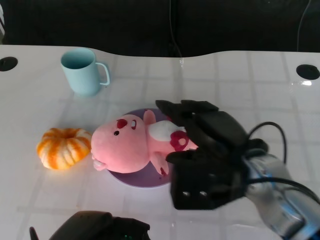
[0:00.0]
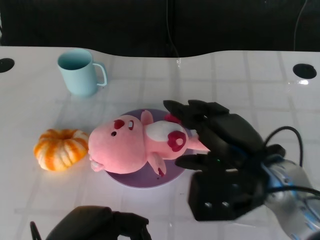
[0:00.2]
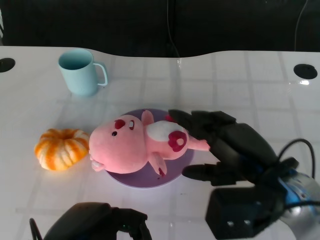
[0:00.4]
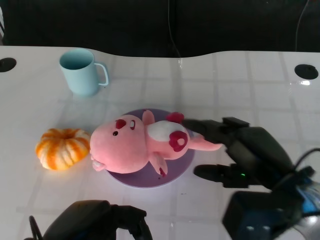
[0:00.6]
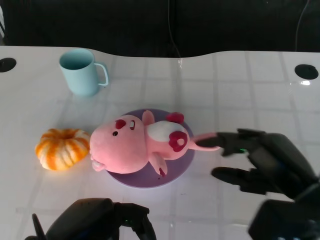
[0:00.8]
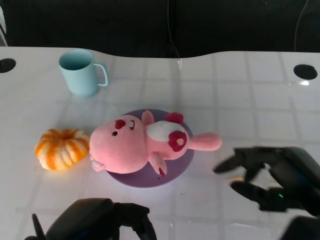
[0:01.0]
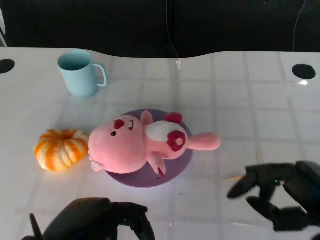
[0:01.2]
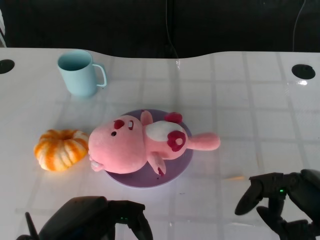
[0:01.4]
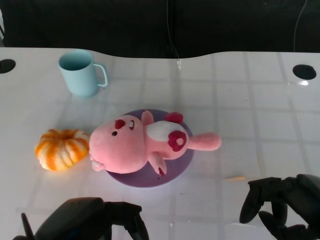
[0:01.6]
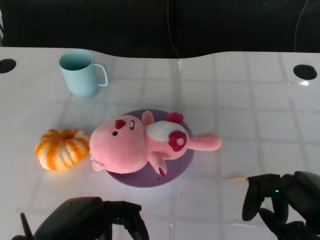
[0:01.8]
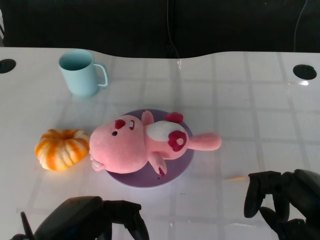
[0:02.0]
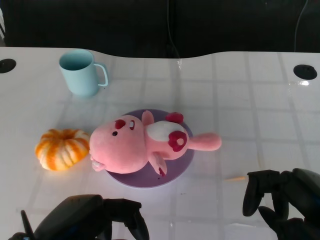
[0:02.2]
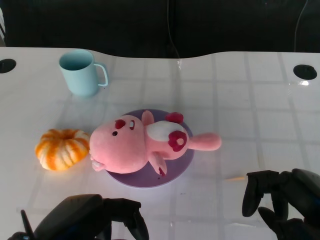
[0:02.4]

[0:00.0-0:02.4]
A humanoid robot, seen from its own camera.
Task of the whole recording: Pick up the doll on the other side of the plate and place it into the plate.
0:00.0 to 0:01.2: The right hand is displaced to the right and backward by approximately 15 cm.
0:01.2 to 0:02.4: The hands stay close to where they were, moving slightly.

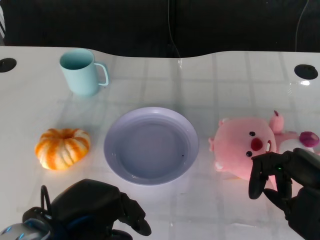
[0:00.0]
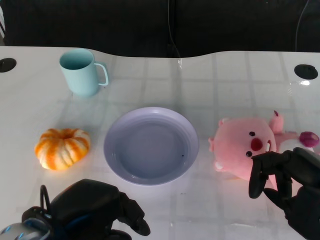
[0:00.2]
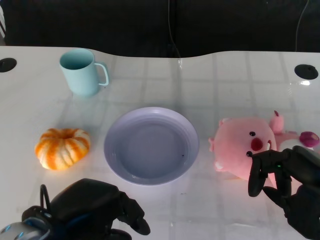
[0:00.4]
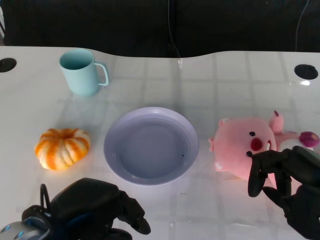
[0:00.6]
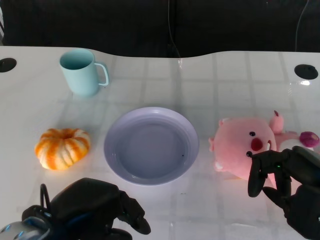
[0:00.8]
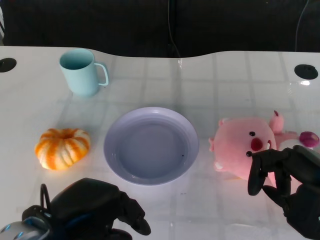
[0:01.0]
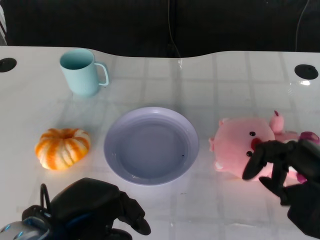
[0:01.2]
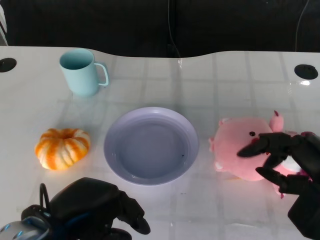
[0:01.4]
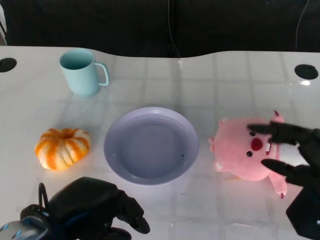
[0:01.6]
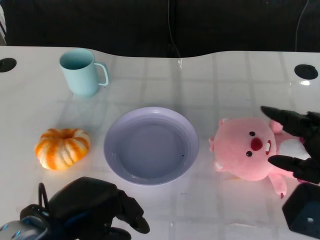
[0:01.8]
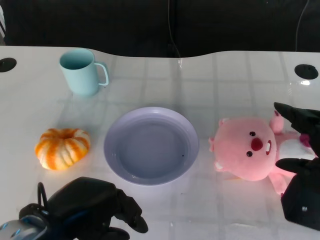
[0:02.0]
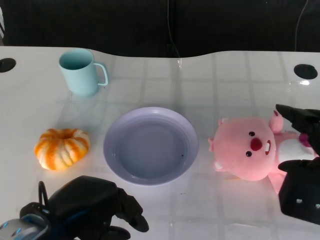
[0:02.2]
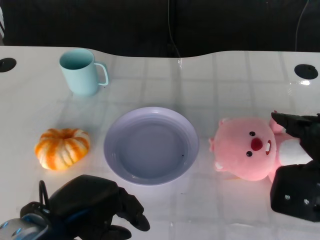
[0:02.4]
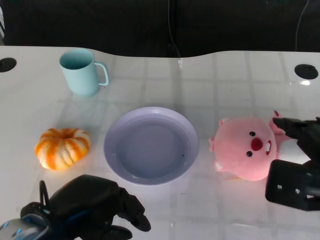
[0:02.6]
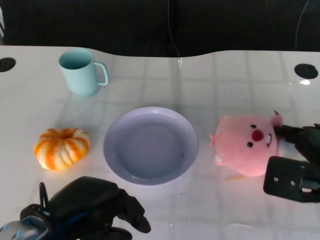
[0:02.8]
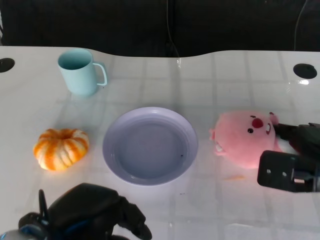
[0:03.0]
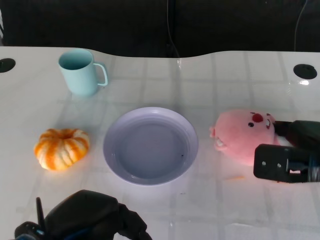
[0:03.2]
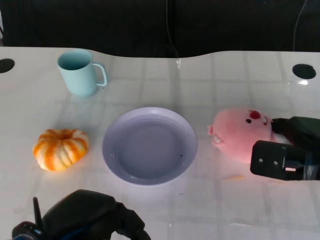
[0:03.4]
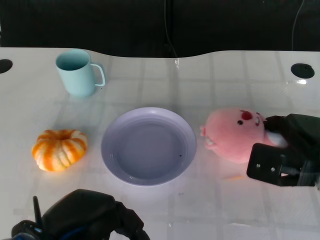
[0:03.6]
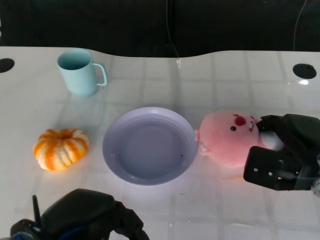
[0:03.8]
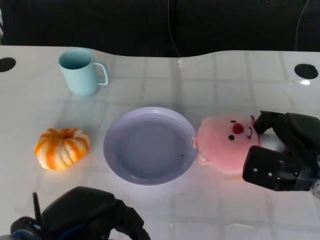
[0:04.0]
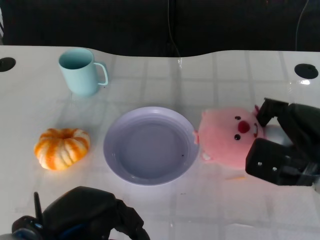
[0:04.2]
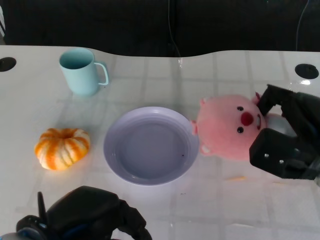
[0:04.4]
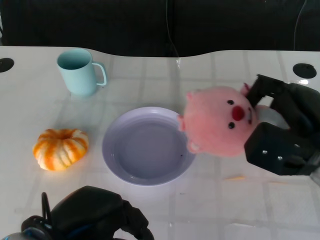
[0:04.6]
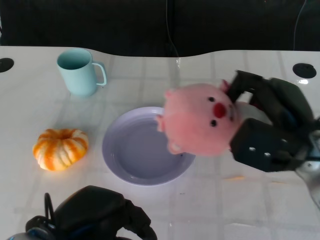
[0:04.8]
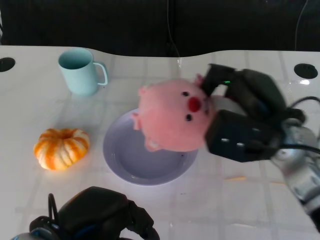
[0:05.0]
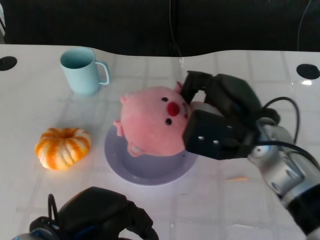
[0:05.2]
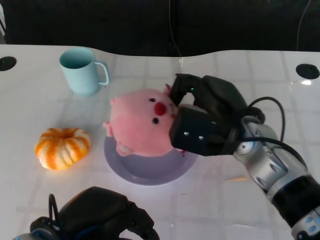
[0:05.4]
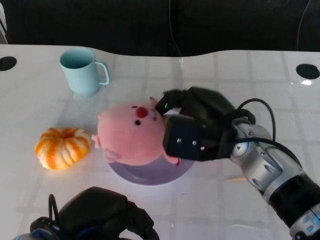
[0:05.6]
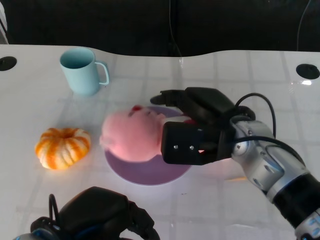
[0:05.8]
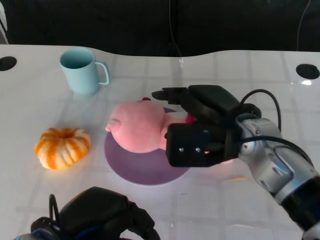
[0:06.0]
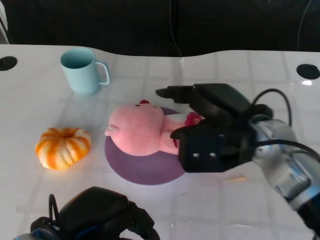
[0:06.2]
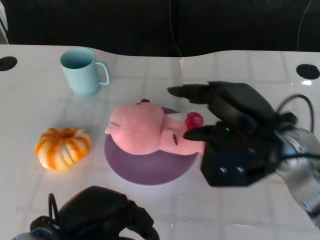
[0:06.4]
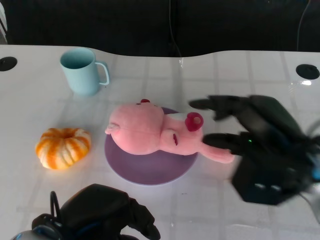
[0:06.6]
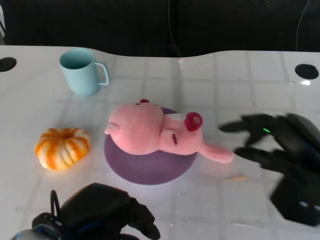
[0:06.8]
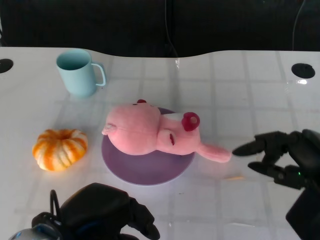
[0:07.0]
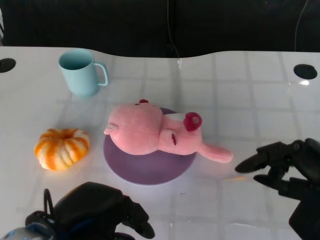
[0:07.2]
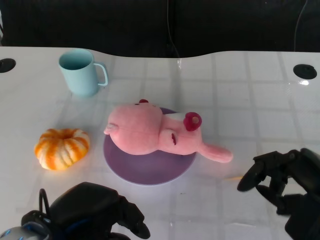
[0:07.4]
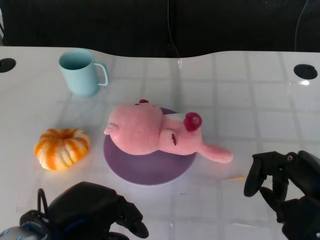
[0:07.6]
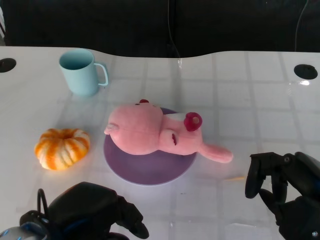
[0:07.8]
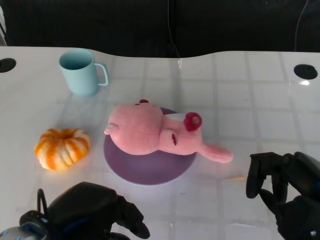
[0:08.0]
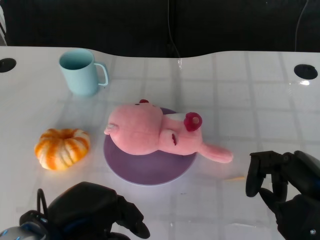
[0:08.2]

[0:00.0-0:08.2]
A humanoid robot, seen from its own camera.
Task of the whole recording: Pick up the doll on the other side of the plate and place it into the plate.
Step, 0:01.0 to 0:04.6: Grasp the pink doll with the right gripper.
Step, 0:04.8 to 0:06.4: Place the pink doll into the plate with the right gripper.
0:01.6 to 0:03.2: The right hand heads forward, covering some 10 cm.
0:03.2 to 0:05.0: The right hand shifts approximately 10 cm to the left.
0:05.0 to 0:06.6: The right hand moves about 5 cm to the left and comes back.
0:06.6 to 0:08.2: The right hand moves backward and to the right, roughly 10 cm.

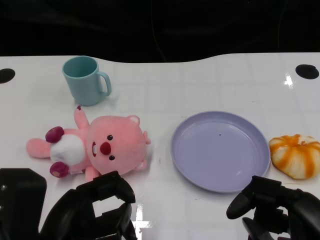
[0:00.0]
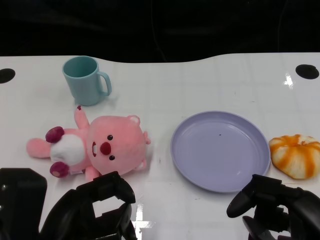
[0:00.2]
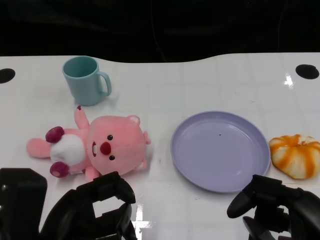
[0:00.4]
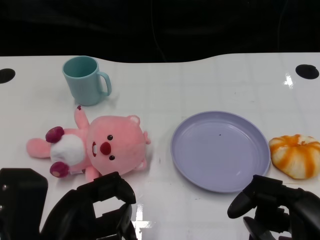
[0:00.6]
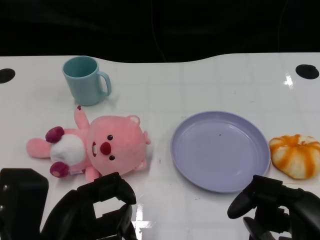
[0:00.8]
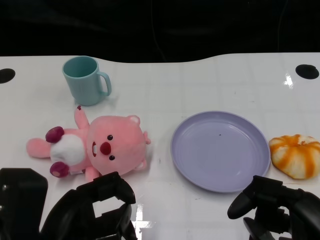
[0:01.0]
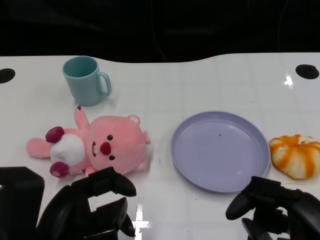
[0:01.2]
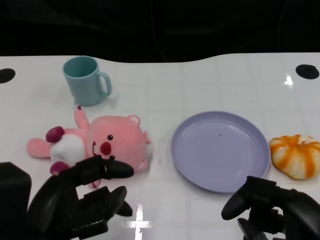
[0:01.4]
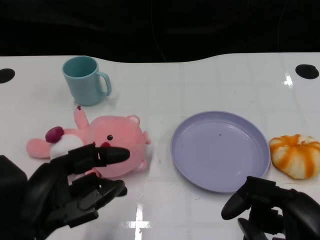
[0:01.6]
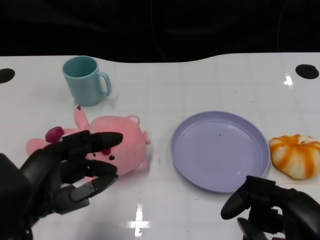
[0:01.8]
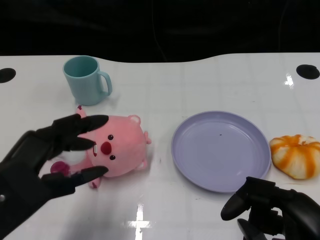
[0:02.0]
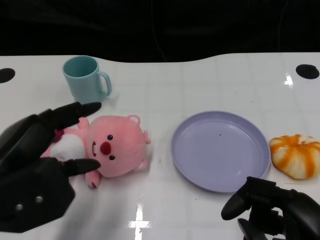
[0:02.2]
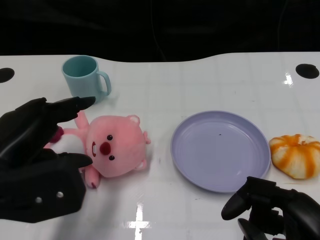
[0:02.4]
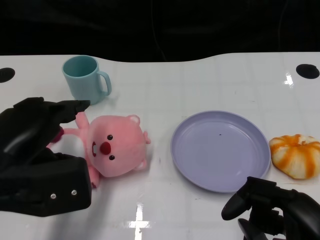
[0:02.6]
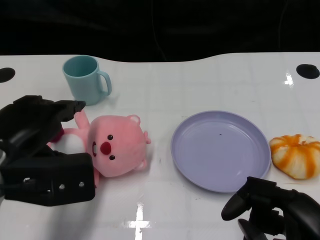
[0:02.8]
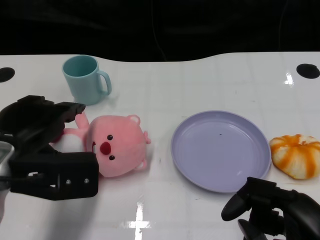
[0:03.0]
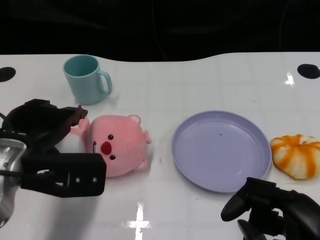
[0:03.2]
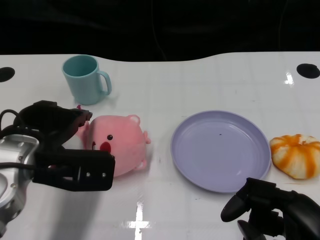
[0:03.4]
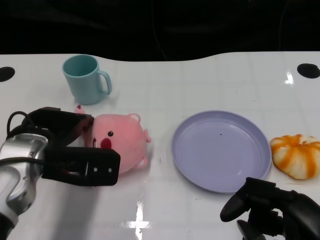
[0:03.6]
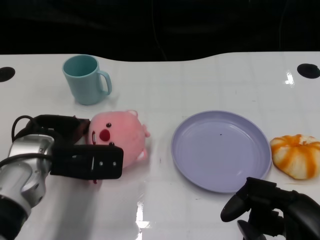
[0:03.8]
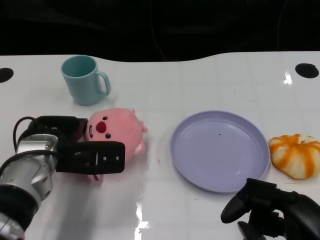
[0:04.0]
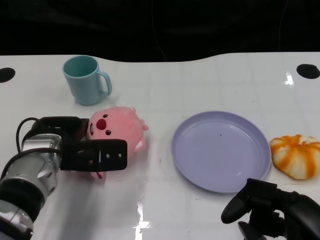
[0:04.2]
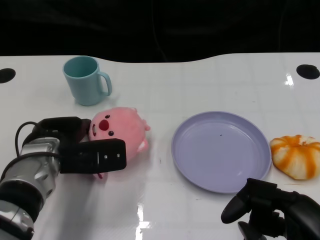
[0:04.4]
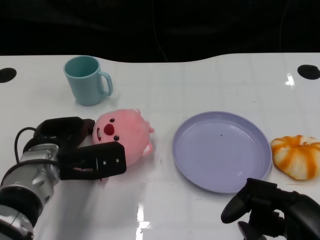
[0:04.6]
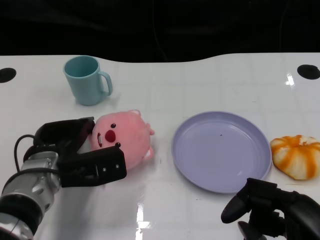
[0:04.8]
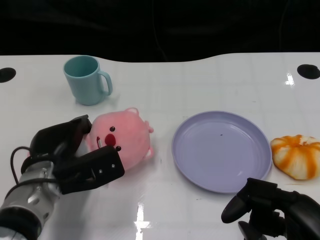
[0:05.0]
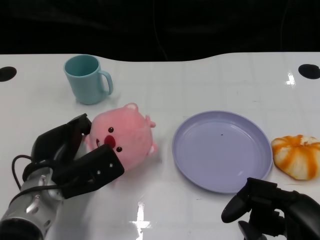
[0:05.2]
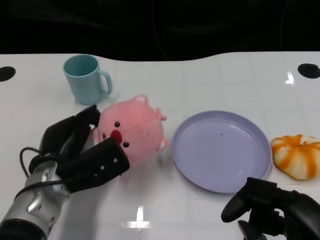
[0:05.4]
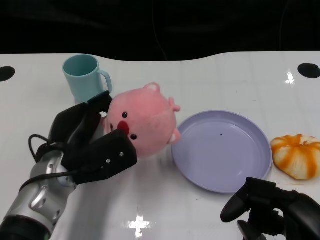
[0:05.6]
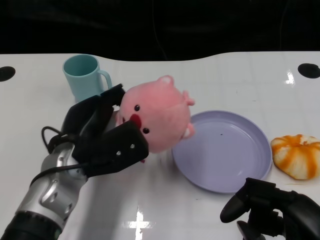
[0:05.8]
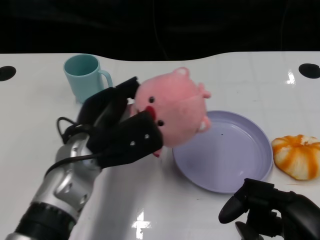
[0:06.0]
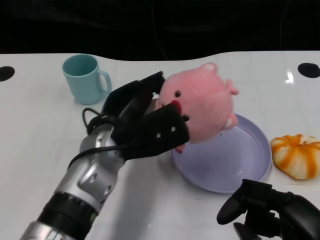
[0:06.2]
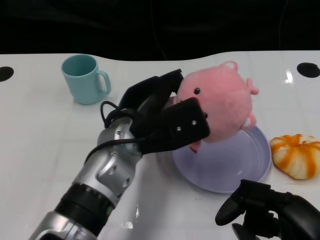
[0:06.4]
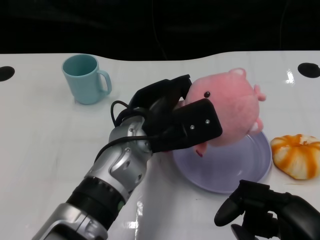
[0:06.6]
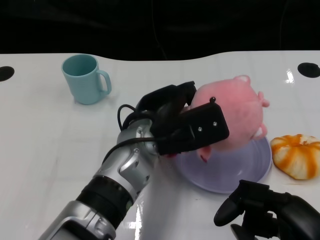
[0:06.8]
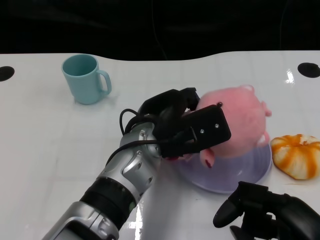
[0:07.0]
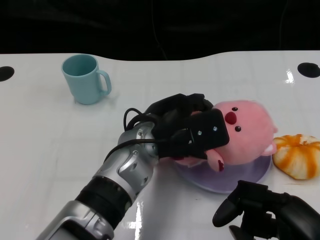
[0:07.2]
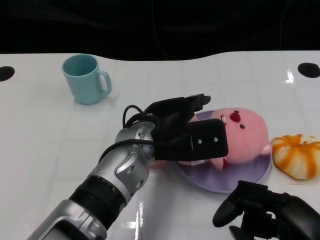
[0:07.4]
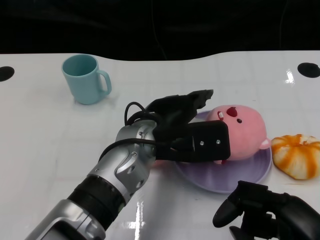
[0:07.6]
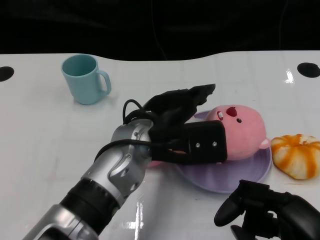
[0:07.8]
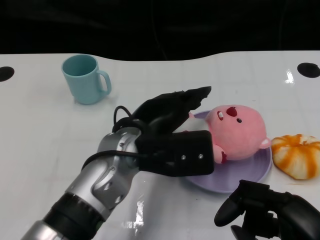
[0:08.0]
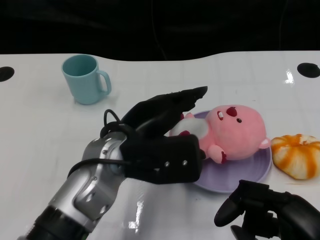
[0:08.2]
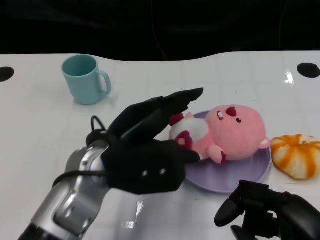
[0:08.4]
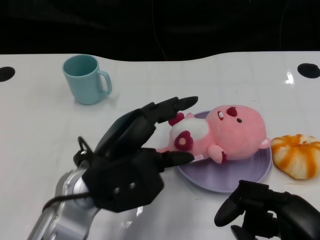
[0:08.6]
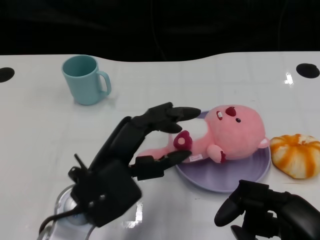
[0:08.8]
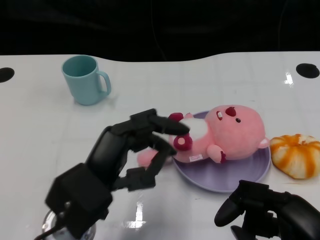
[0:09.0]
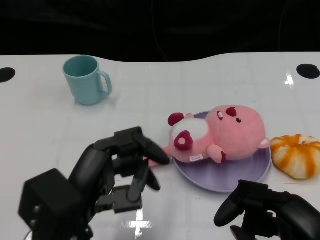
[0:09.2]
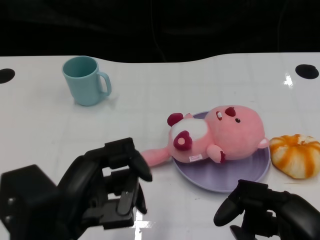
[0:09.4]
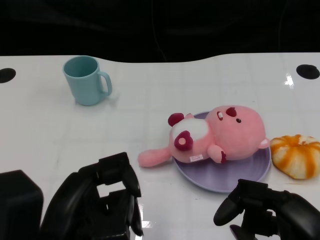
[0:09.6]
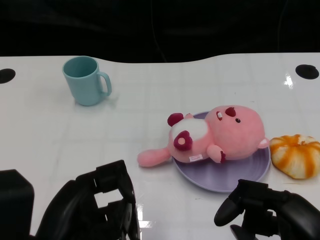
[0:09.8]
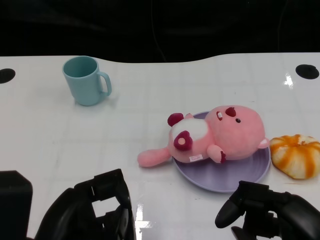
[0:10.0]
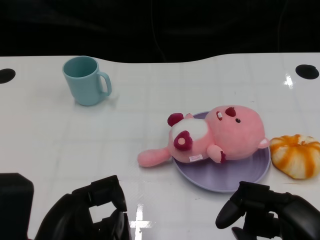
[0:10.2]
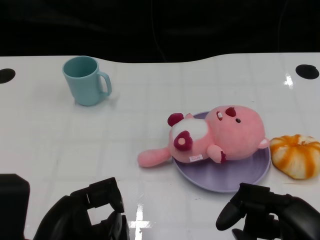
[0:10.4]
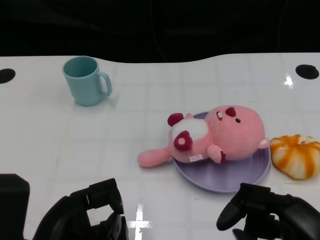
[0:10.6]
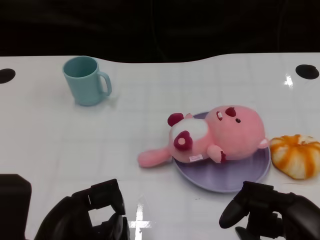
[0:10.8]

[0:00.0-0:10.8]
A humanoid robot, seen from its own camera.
Task of the whole recording: Pick up the doll on one side of the plate and place it into the plate.
Step, 0:01.2 to 0:05.2: Grasp the pink doll with the left gripper.
Step, 0:05.4 to 0:07.6: Place the pink doll into the plate with the left gripper.
0:01.6 to 0:03.0: The left hand travels forward by approximately 10 cm.
0:03.0 to 0:04.6: The left hand travels downward and forward by roughly 10 cm.
0:04.6 to 0:06.2: The left hand travels to the right and upward by roughly 10 cm.
0:07.8 to 0:09.2: The left hand travels backward and to the left by roughly 15 cm.
0:09.2 to 0:10.8: The left hand moves some 5 cm.
